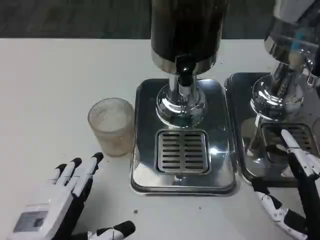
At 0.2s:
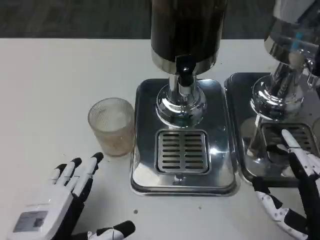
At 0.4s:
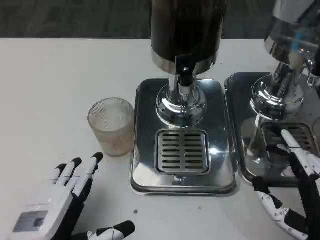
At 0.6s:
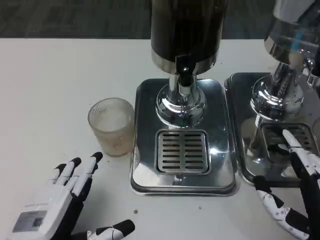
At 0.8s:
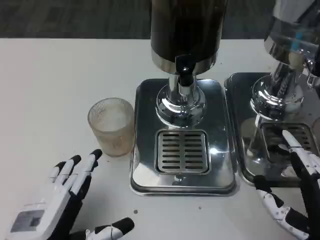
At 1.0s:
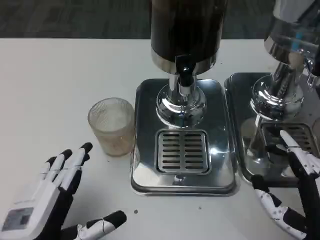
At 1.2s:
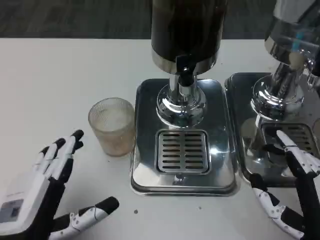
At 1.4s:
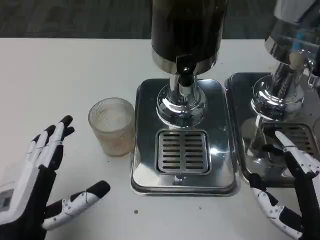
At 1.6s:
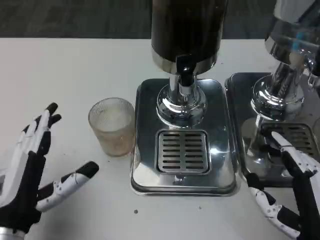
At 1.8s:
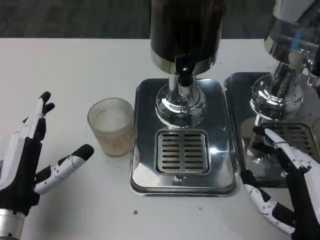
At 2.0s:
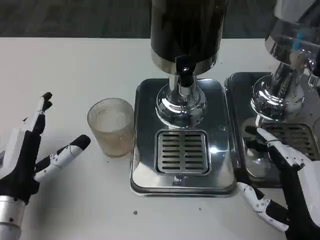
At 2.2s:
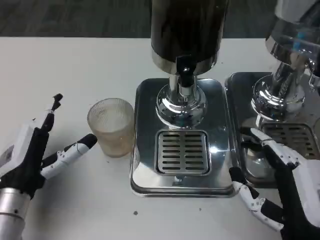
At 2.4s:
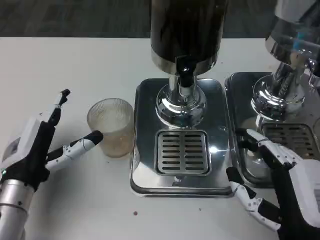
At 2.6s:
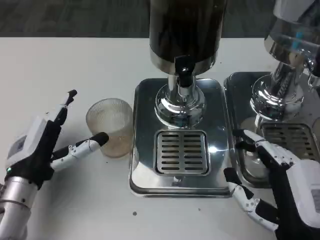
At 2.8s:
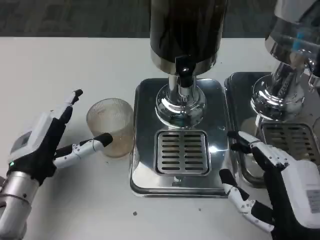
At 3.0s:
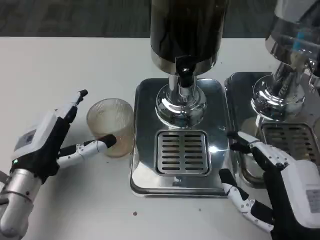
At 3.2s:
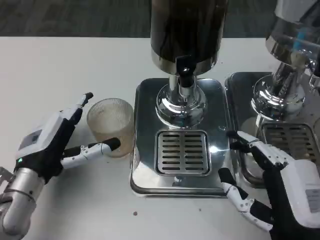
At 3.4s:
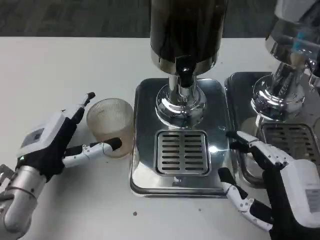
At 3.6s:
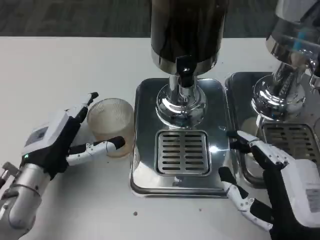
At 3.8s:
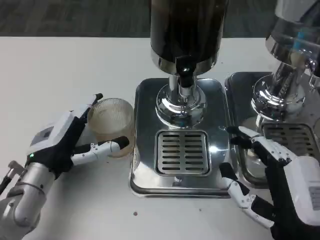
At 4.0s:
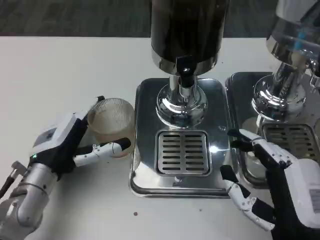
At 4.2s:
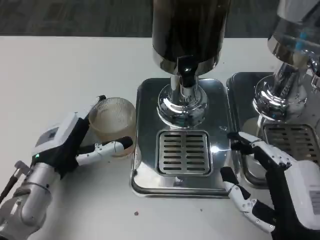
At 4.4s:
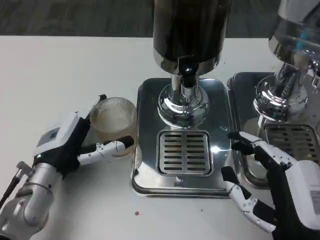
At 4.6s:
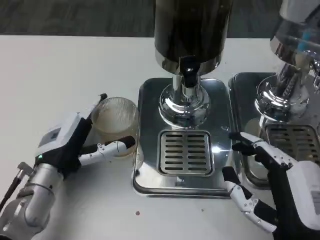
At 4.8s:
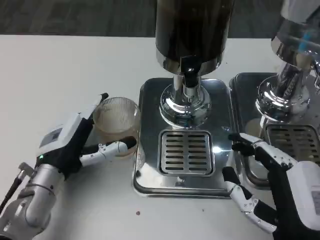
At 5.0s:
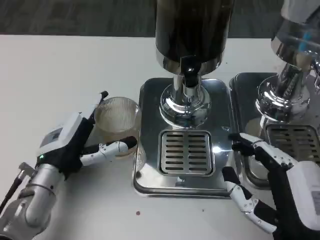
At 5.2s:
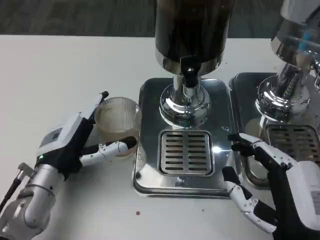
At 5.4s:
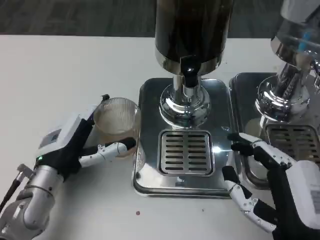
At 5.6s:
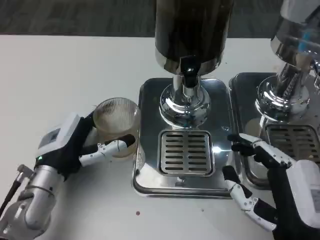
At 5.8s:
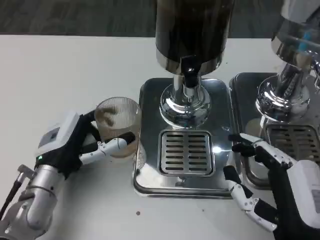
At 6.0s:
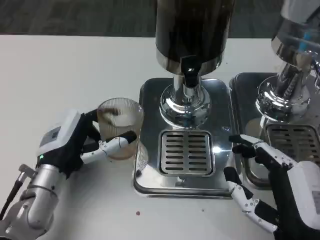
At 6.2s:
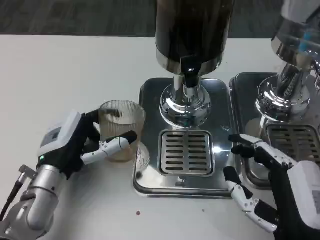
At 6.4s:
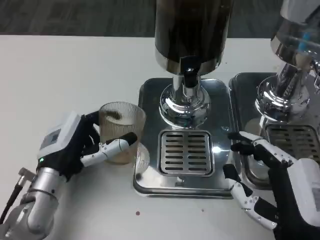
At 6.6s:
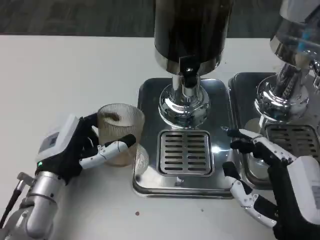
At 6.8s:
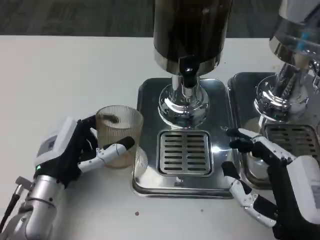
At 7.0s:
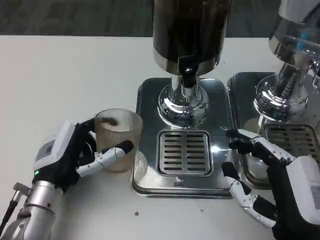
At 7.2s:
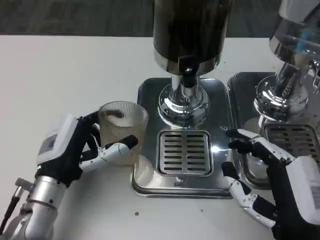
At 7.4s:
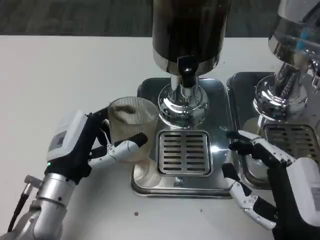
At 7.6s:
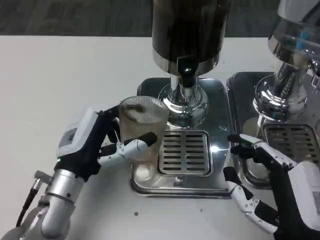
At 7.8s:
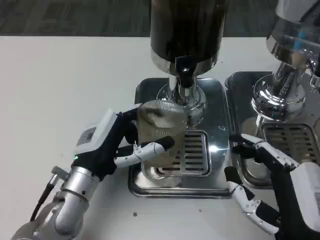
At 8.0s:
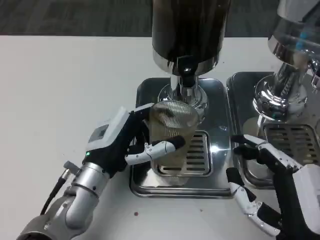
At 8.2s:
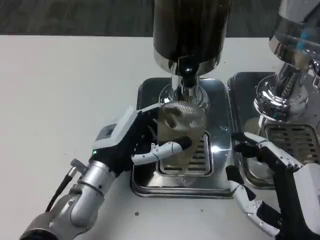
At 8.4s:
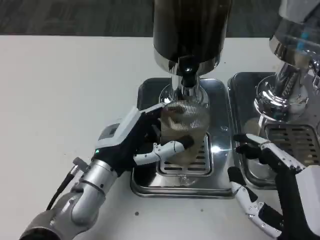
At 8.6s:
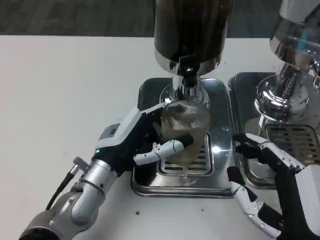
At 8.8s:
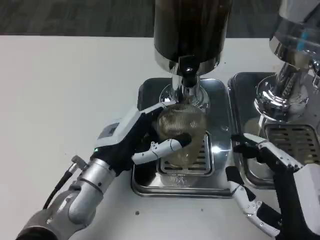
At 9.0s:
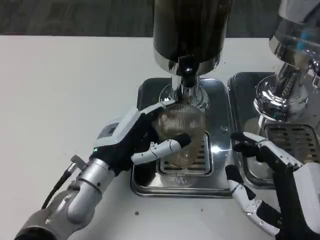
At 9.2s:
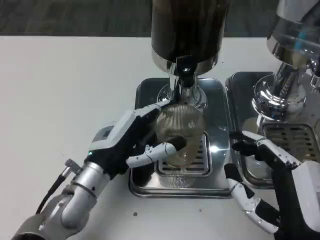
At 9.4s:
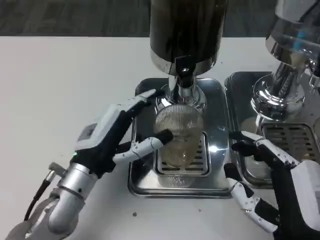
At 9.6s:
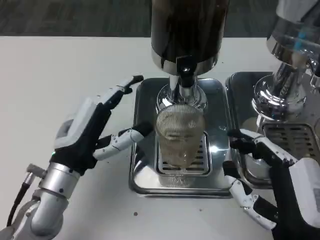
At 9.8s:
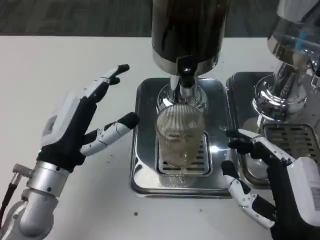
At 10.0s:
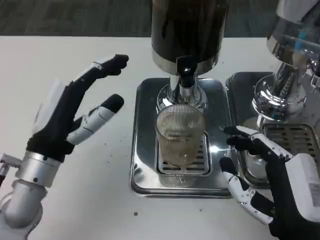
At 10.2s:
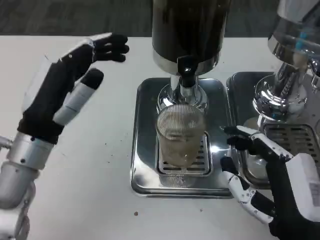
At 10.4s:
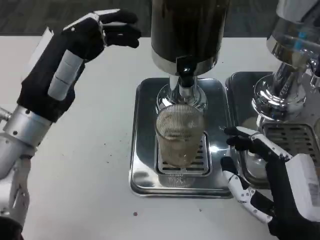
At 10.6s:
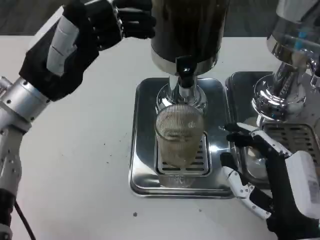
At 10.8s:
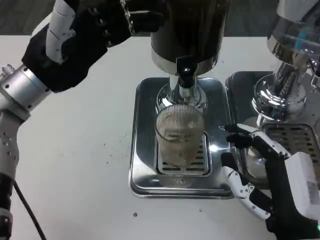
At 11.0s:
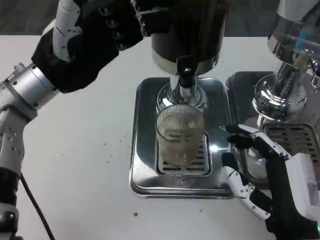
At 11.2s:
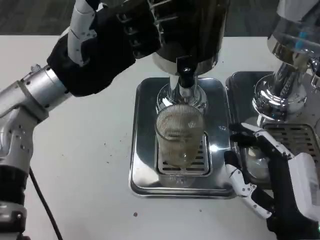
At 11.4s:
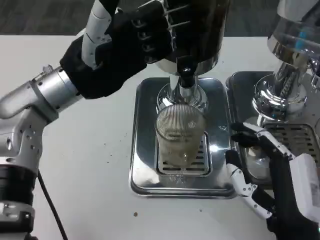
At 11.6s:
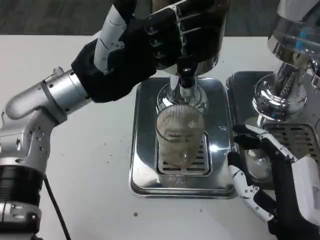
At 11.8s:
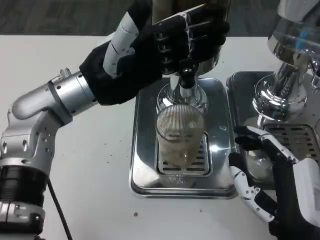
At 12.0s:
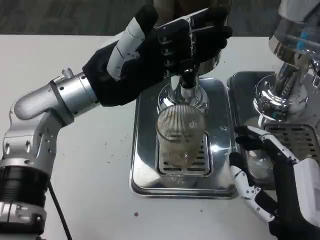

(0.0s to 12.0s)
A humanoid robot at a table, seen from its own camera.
Task of the whole recording: Grasp the cup under the faucet to collect the drink, then remove the cup.
0.0s - 1.6s: The left hand shifts approximately 5 cm forward.
1.6s - 3.0s: The left hand shifts about 10 cm forward.
4.4s - 6.0s: The hands move only a little.
9.0s - 10.4s: The left hand goes some 15 cm upward and to the left.
10.4s - 12.0s: The left hand ends up about 5 cm from where it was.

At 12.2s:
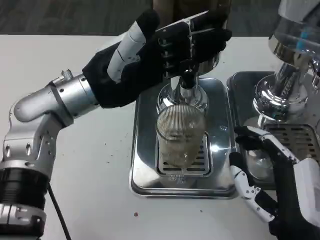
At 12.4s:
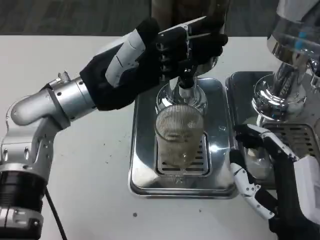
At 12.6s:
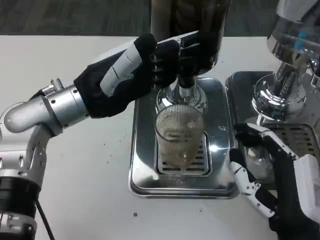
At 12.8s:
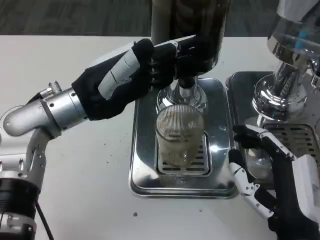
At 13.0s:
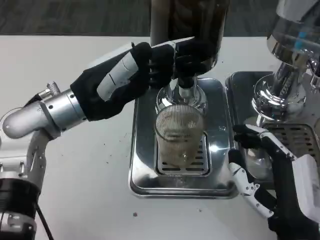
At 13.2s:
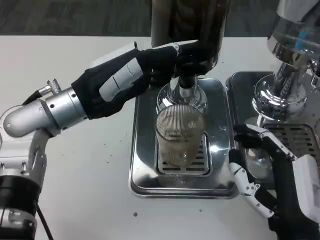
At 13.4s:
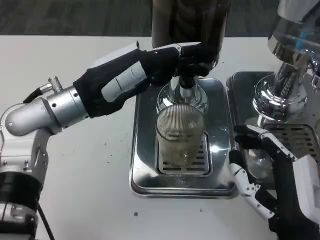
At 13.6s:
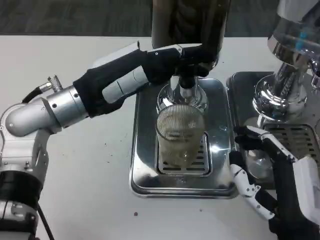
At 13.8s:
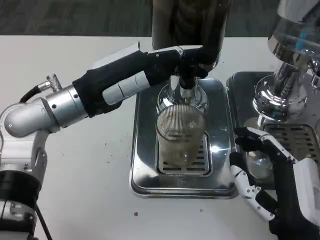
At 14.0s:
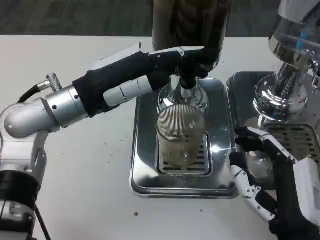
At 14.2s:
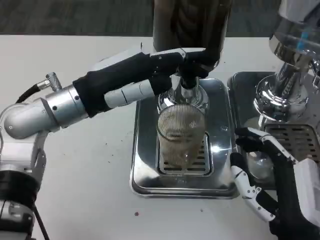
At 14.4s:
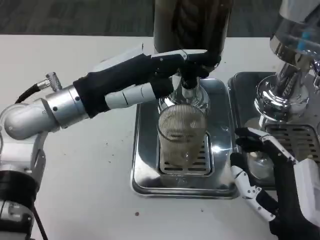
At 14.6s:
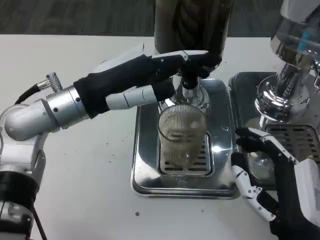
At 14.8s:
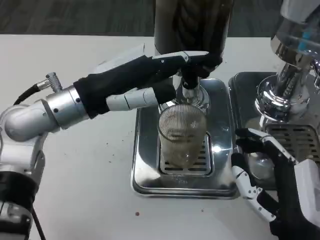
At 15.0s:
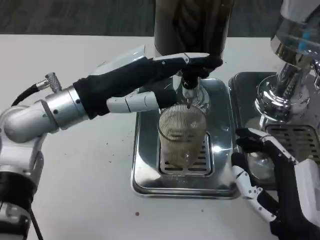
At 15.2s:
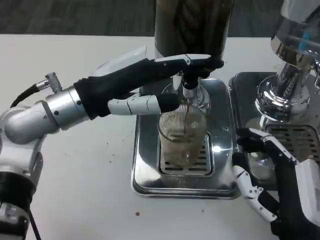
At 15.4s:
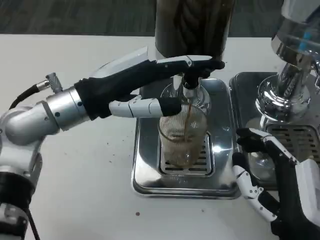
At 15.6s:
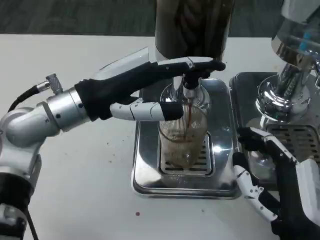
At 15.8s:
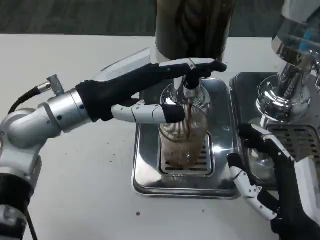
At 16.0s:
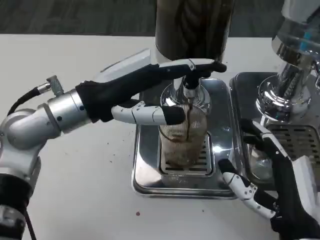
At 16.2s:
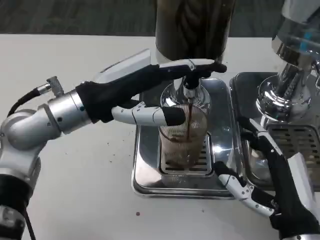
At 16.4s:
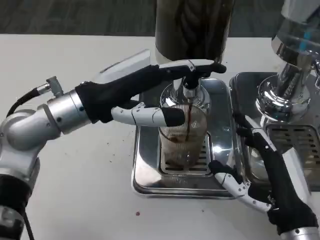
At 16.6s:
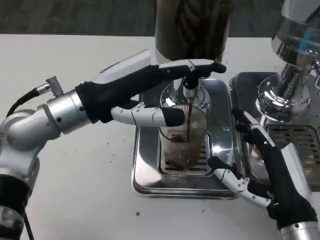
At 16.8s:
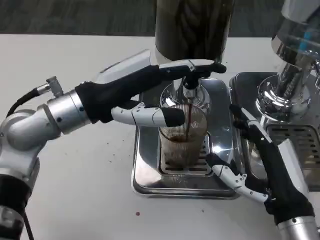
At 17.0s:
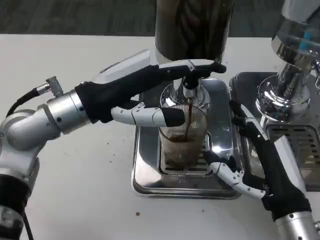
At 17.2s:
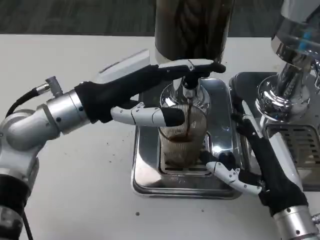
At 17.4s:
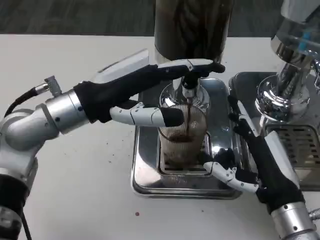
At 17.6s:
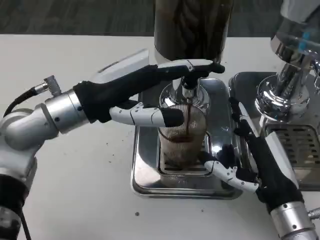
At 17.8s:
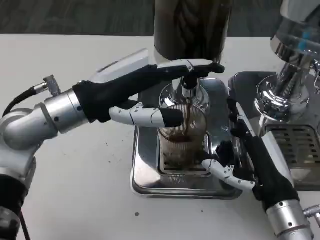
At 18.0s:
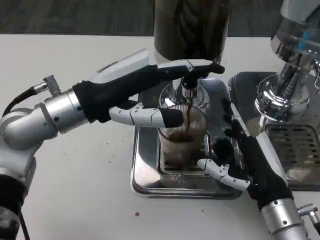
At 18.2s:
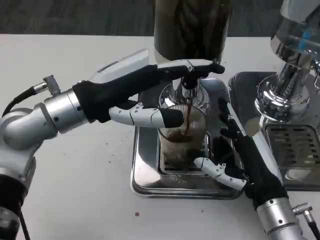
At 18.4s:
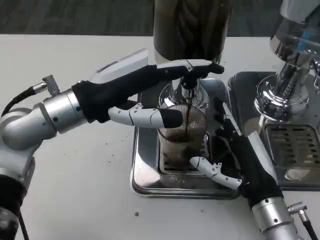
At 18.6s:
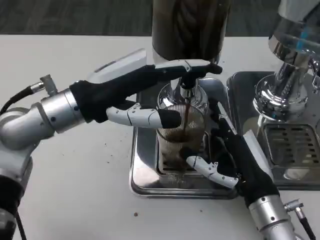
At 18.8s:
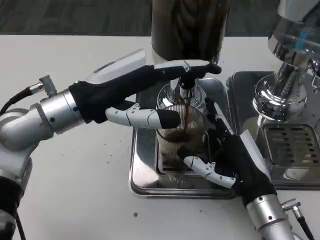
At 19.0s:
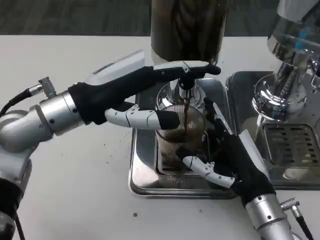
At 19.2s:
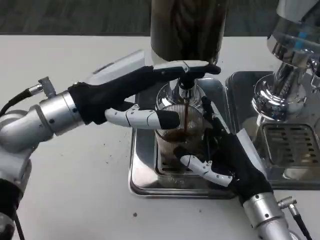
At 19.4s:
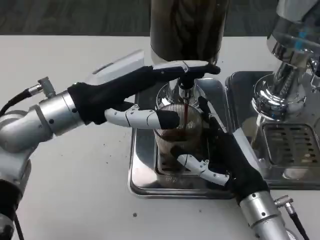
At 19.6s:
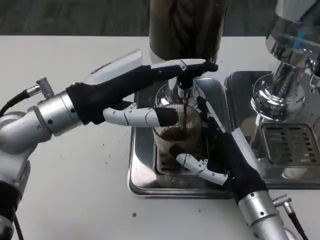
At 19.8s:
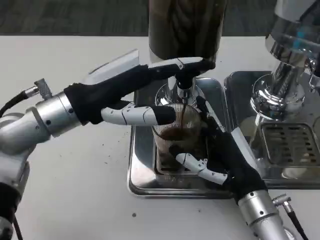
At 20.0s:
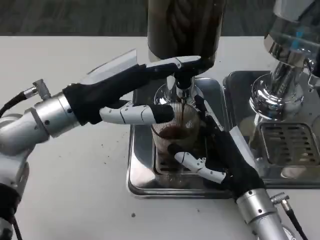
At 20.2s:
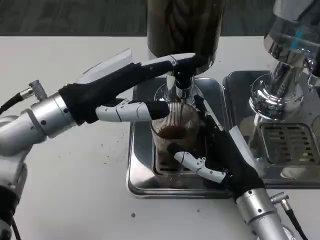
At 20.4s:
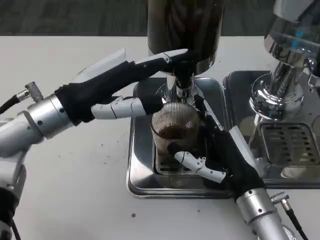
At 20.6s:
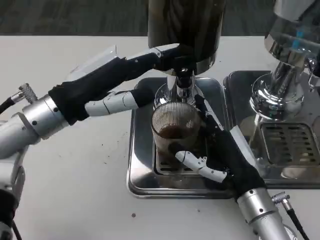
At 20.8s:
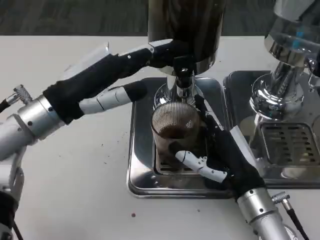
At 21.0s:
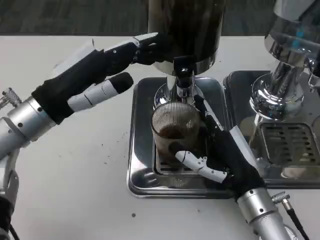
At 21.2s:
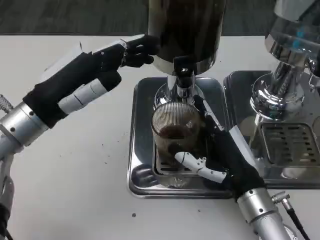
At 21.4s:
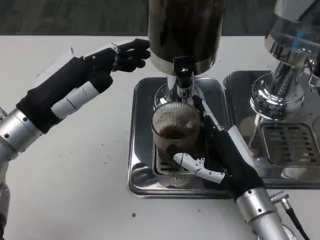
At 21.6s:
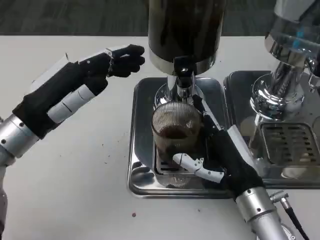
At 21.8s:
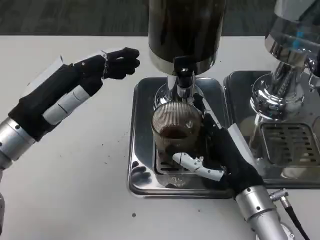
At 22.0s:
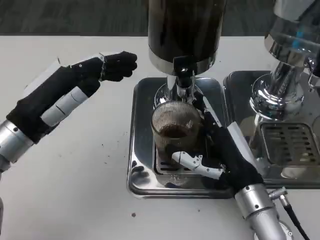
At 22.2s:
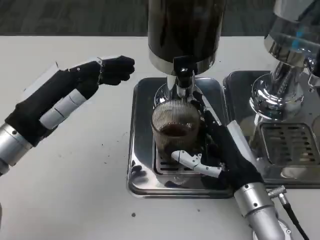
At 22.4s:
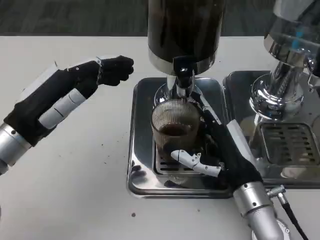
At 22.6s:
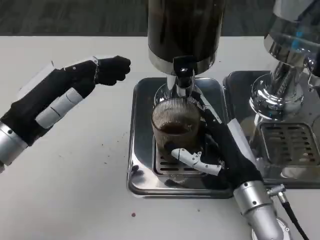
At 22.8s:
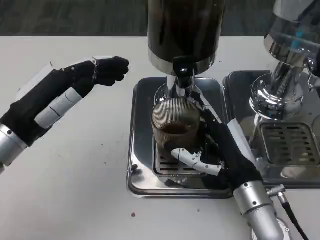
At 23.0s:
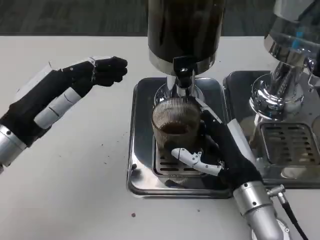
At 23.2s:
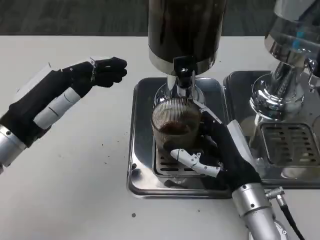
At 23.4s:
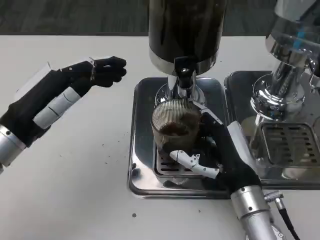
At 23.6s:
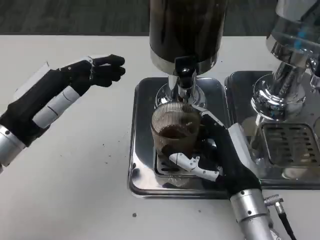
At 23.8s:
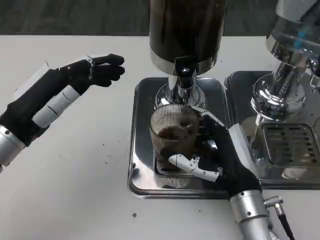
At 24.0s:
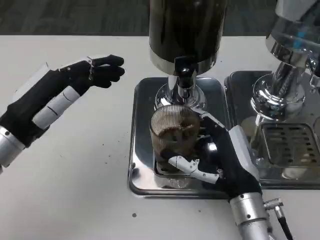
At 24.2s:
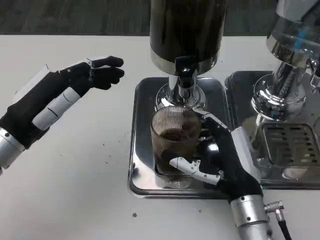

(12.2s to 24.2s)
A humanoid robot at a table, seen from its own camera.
Task of the whole recording: Grasp the cup under the faucet to collect the drink, then remove the cup.
13.8s - 15.2s: The hands stay close to where they were, moving slightly.
15.2s - 16.6s: The hands make only small movements.
16.6s - 18.2s: The hands stay close to where they were, moving slightly.
21.2s - 24.2s: The hands move only a little.
